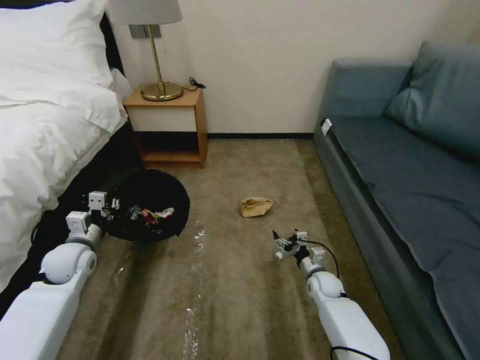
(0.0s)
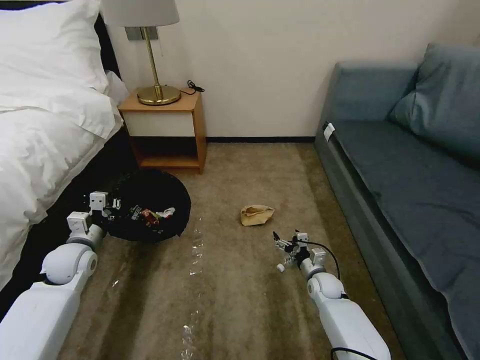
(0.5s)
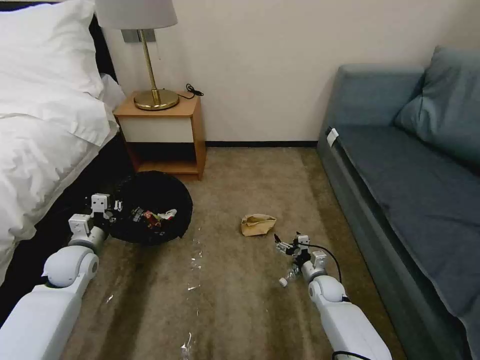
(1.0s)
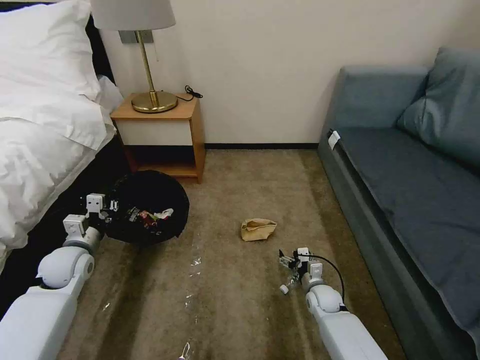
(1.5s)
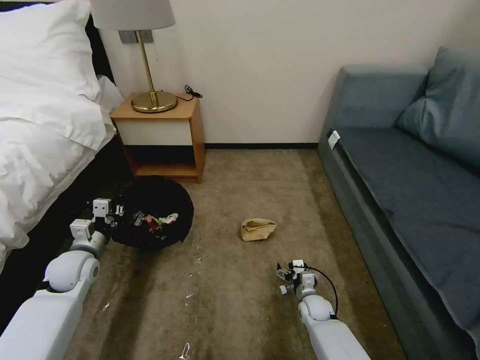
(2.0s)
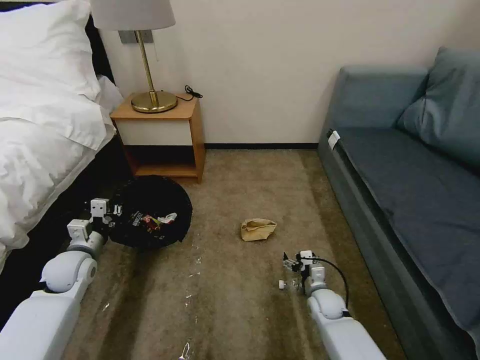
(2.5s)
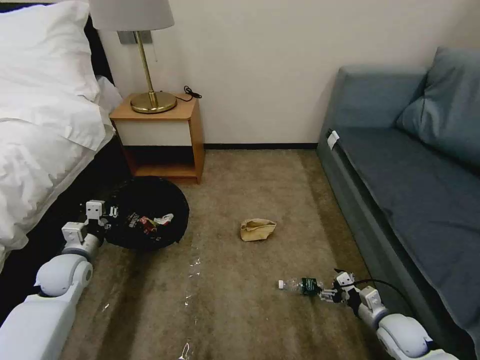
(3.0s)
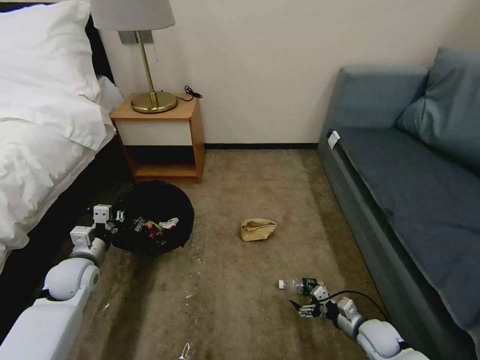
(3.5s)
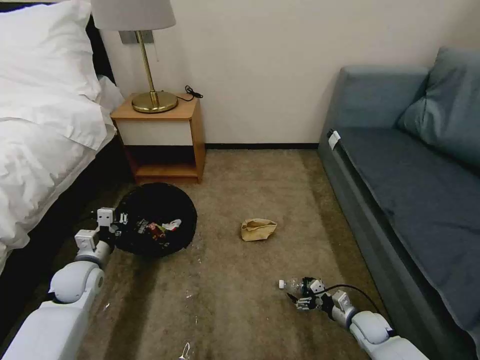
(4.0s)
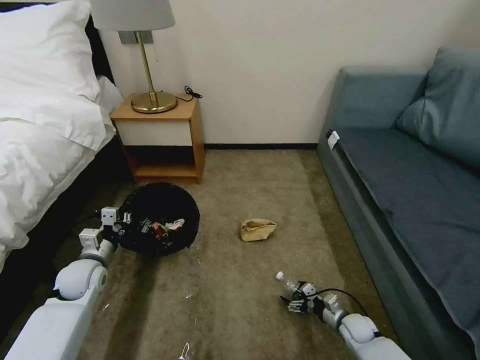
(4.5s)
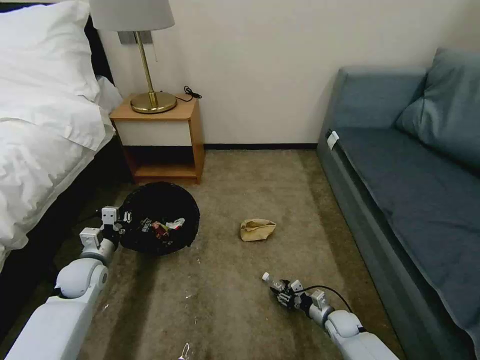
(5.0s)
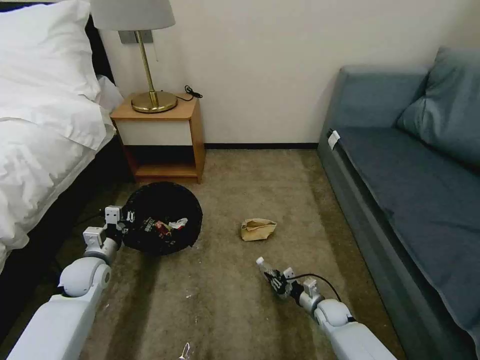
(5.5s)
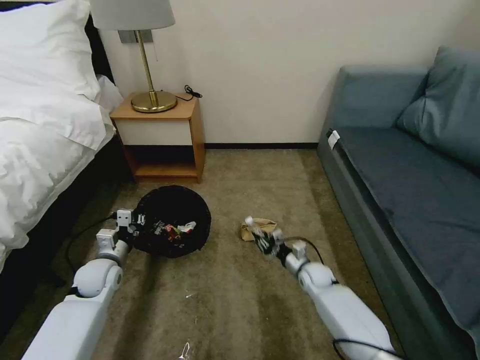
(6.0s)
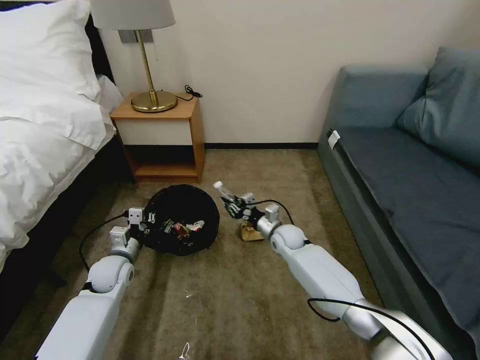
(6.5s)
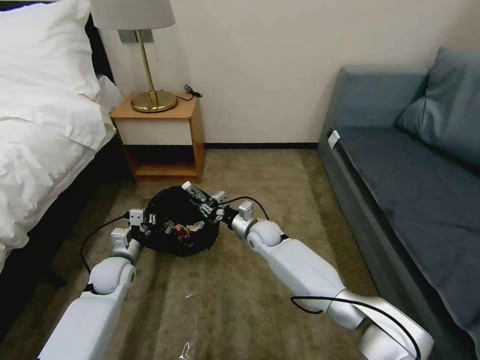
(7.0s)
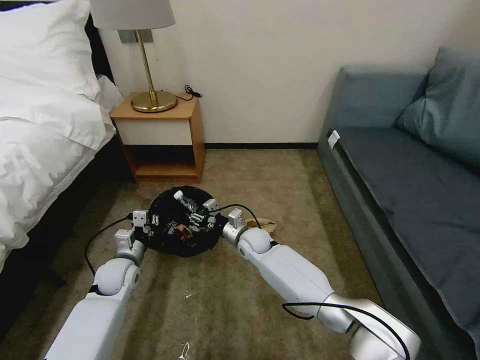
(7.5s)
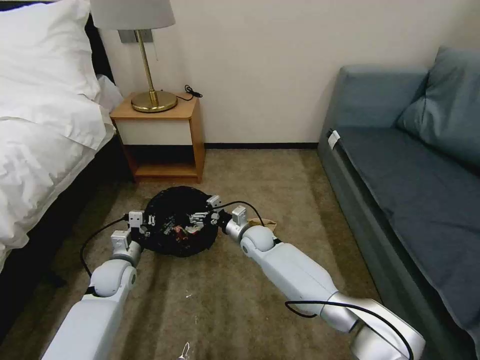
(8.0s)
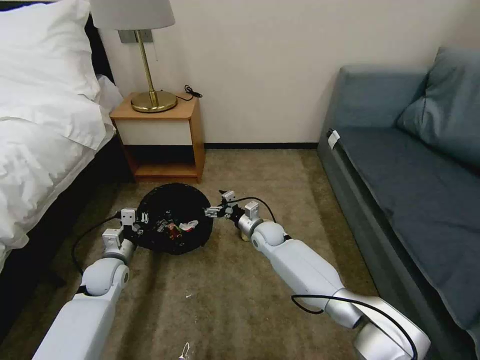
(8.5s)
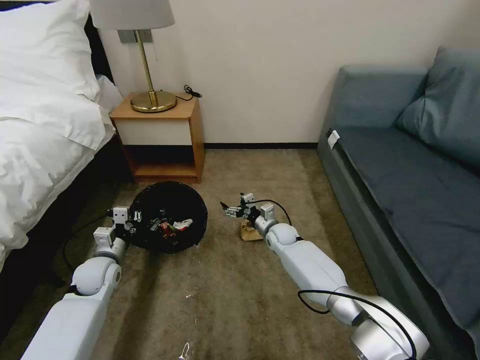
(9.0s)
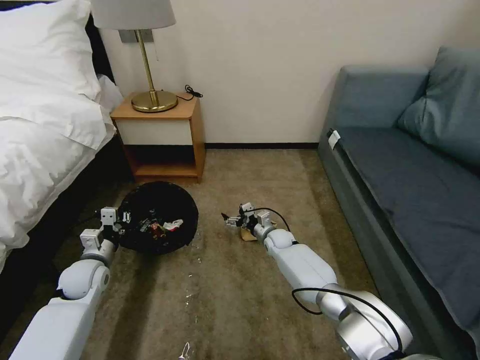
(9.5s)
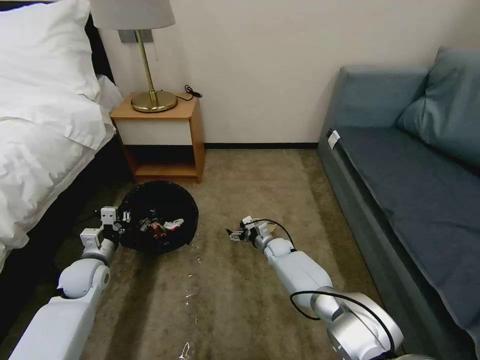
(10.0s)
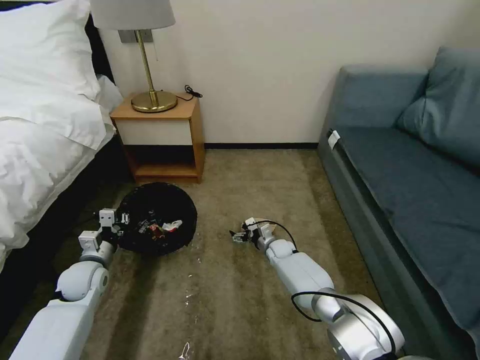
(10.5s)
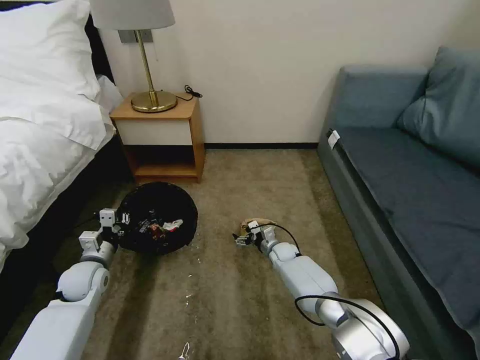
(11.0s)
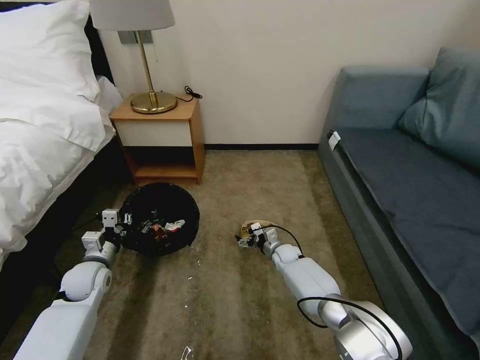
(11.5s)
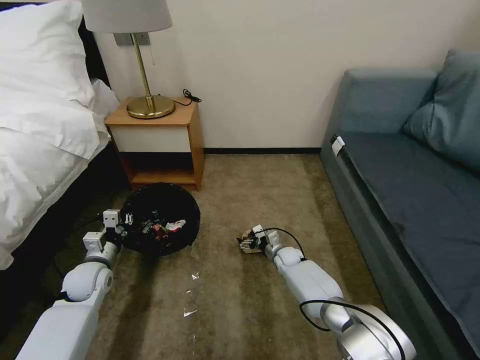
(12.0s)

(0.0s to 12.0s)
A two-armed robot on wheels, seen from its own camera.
Task of the whole recording: Pick up the trash bin, then pick up the garbage on the floor and place it into the trash bin.
0.0s - 2.0s: The right gripper goes some 5 cm downward and backward.
2.0s - 4.0s: The right gripper travels to the right and backward by approximately 15 cm.
4.0s - 6.0s: The right gripper shifts roughly 20 cm forward and to the left, and closes up.
6.0s - 8.0s: The right gripper moves to the left and upward, some 20 cm, and opens.
8.0s - 10.0s: The right gripper moves downward and to the right, approximately 15 cm; the left gripper moves to the left, roughly 5 cm.
10.0s - 12.0s: The grippers move only a little.

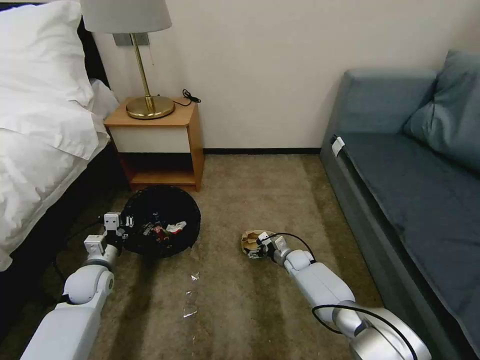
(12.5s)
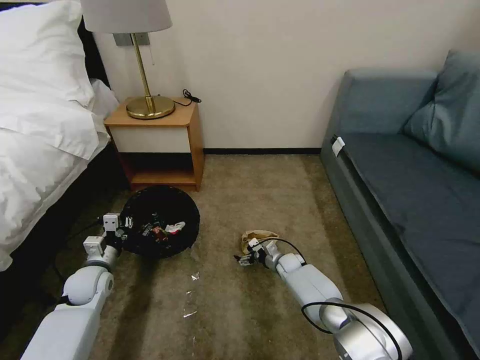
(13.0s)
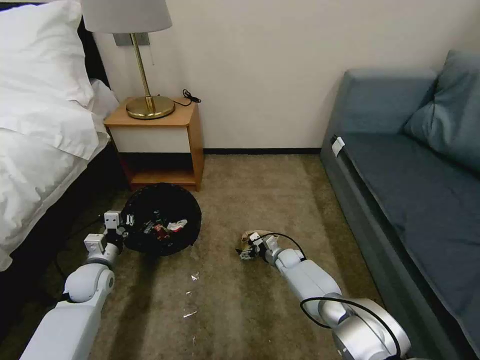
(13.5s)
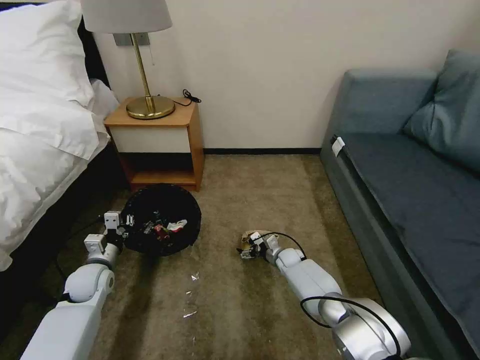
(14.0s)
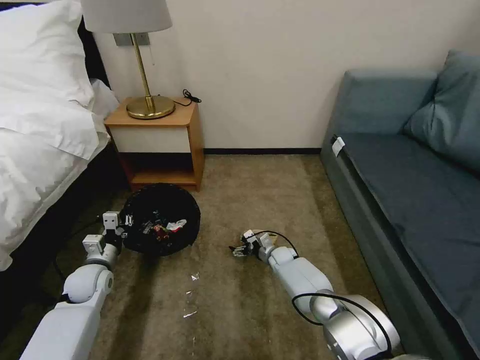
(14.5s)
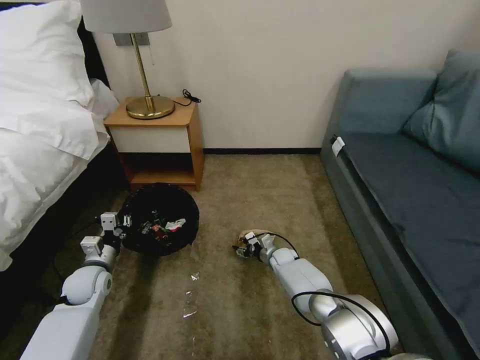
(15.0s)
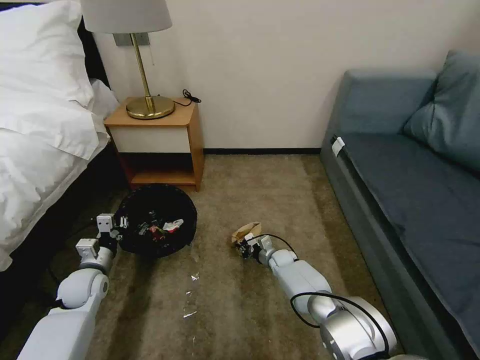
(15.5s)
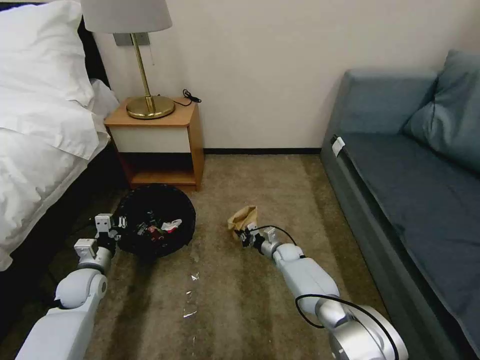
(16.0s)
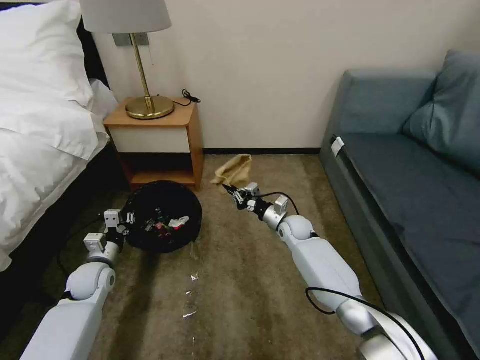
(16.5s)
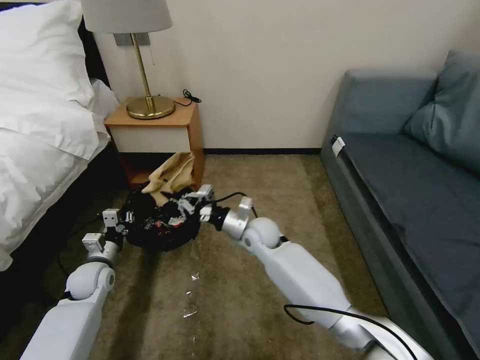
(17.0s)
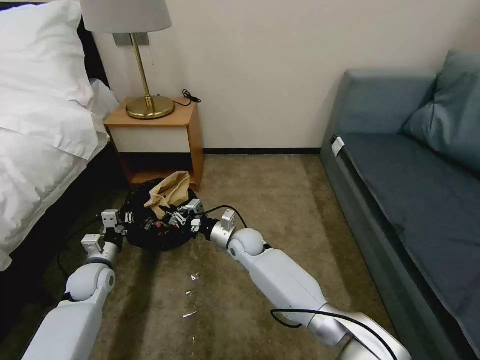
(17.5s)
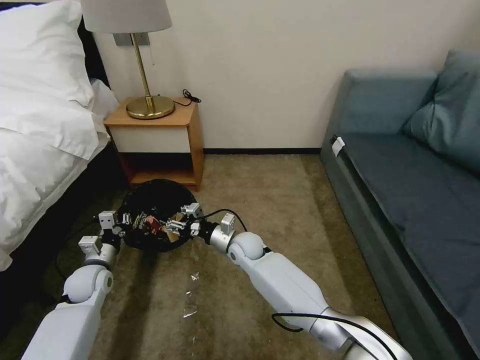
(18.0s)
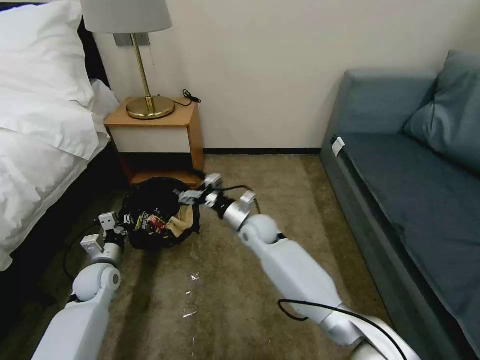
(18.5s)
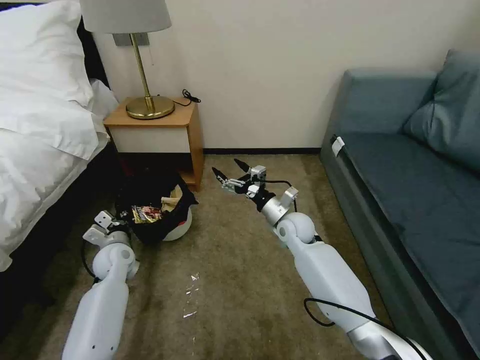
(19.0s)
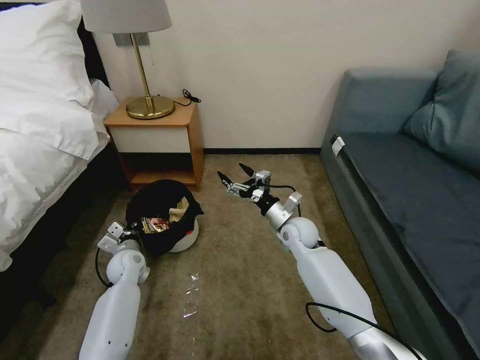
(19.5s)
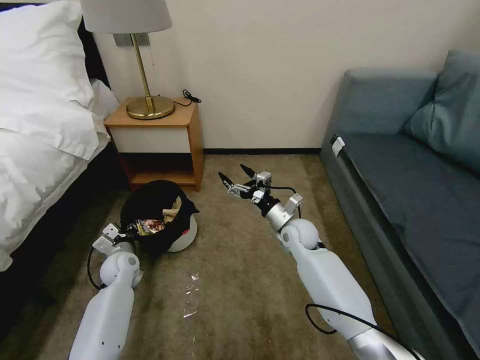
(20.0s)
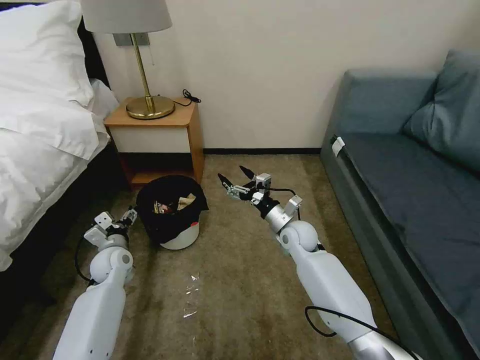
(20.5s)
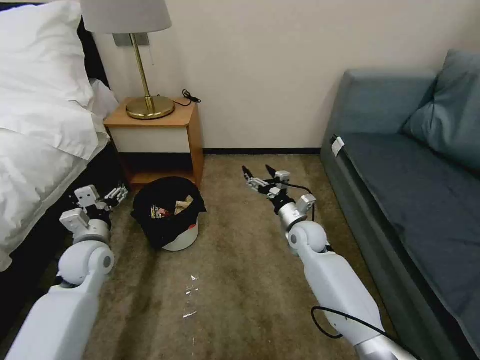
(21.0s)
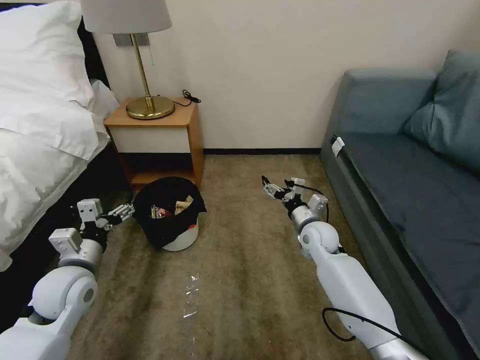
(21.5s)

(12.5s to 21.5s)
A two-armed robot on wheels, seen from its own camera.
Task of the whole recording: Pick up the trash bin, then pick up the garbage on the floor and place it into the trash bin.
12.5s - 14.5s: The right gripper shifts roughly 5 cm to the left.
14.5s - 17.0s: The right gripper goes roughly 25 cm upward and to the left, and closes.
17.0s - 19.5s: The right gripper moves to the right, some 10 cm, and opens its fingers. Meanwhile the left gripper is displaced to the right by approximately 5 cm.
19.5s - 21.5s: The left gripper moves upward and backward, about 20 cm, and opens up. Meanwhile the right gripper travels to the right by roughly 5 cm.

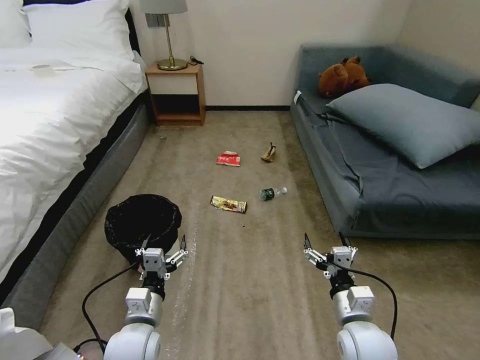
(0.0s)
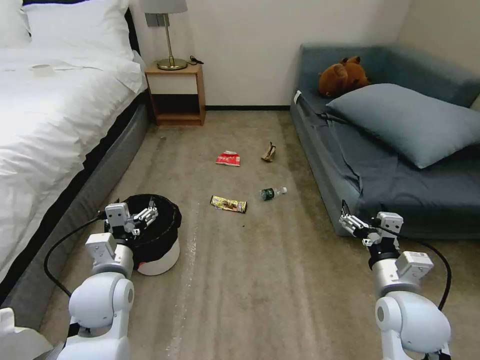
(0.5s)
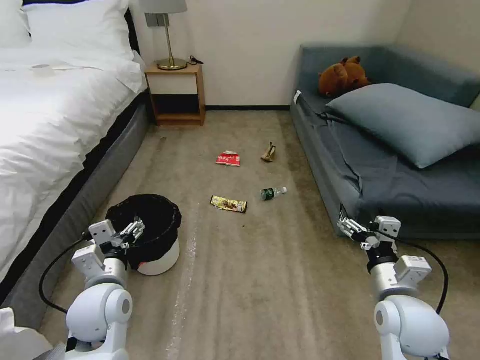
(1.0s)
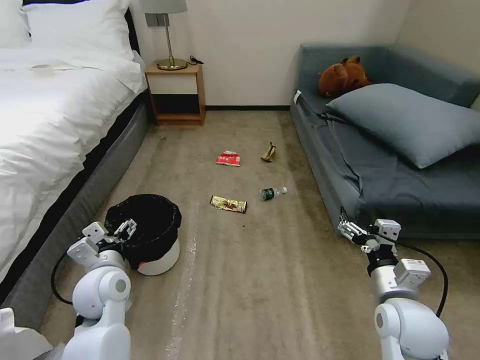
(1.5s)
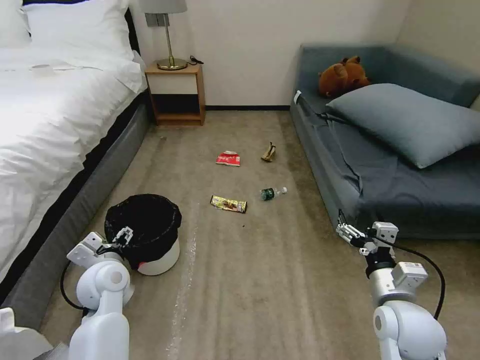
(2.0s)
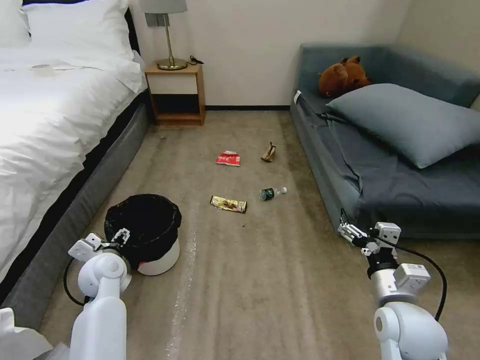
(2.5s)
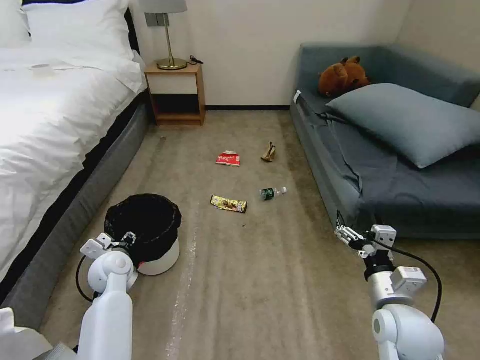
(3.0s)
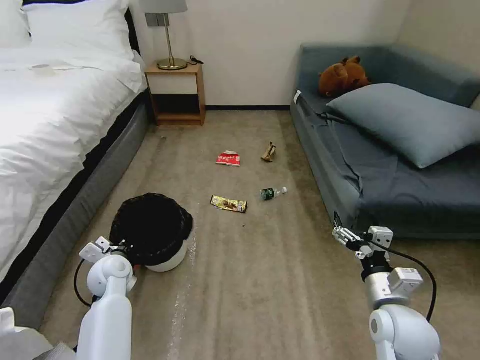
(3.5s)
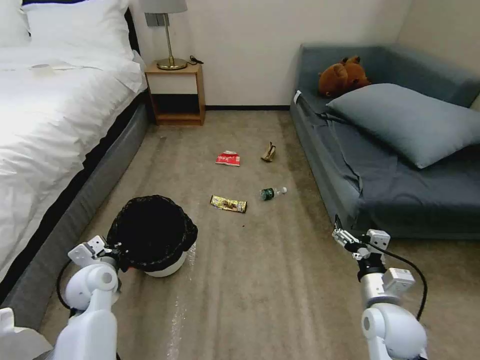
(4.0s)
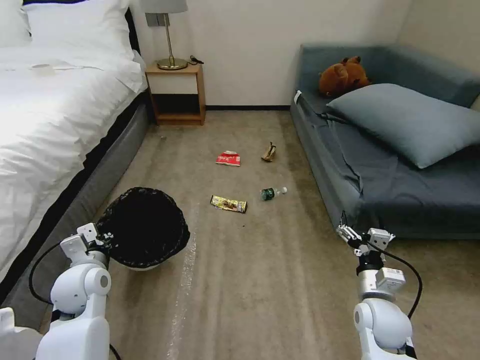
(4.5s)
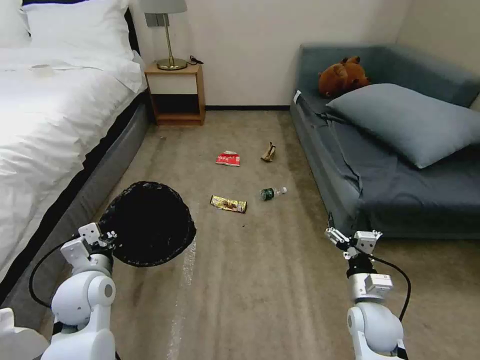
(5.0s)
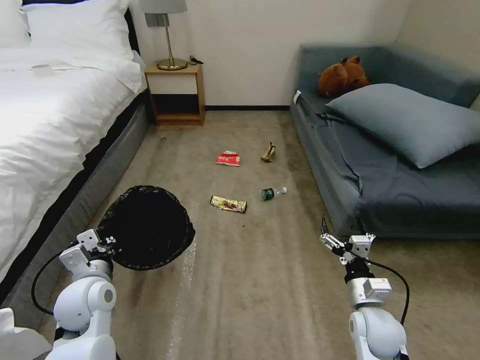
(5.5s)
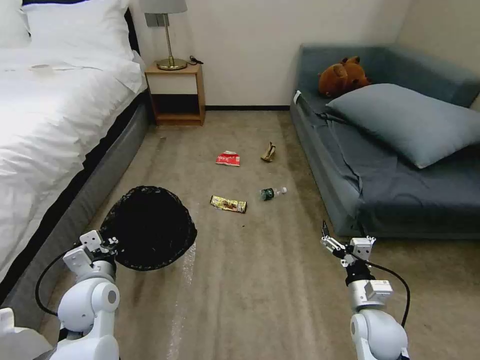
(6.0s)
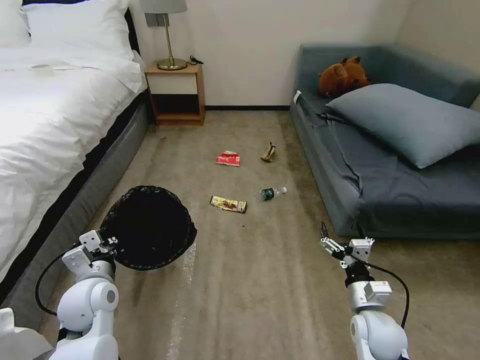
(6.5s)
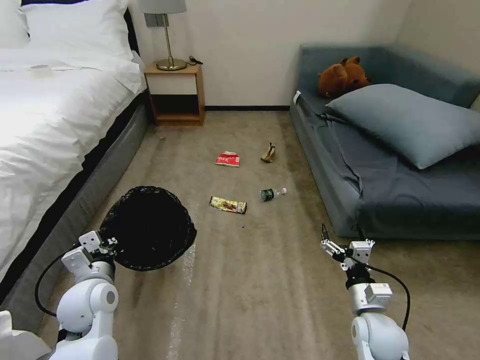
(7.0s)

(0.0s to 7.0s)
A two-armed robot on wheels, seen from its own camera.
Task of the whole recording: Pick up the trash bin, then pick up the garbage on the floor and place it into the trash bin.
2.0s - 3.5s: The left gripper heads downward, covering some 5 cm, and closes.
3.5s - 5.0s: The left gripper is displaced upward and backward by approximately 10 cm; the right gripper travels downward by some 5 cm.
5.0s - 7.0s: The grippers stay close to where they were, moving slightly.
